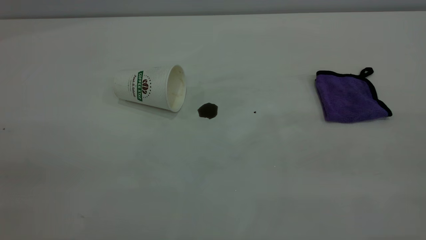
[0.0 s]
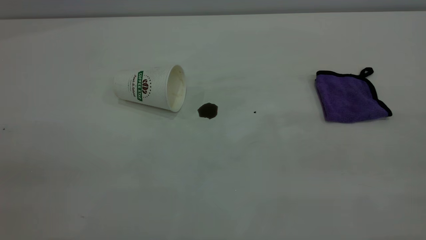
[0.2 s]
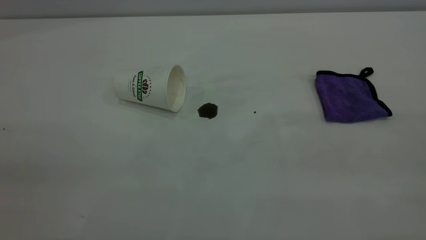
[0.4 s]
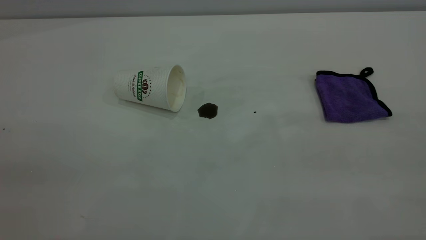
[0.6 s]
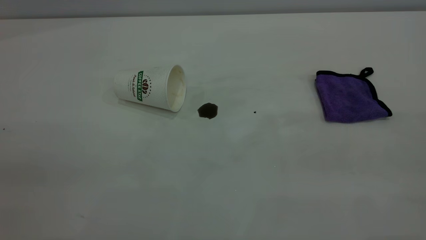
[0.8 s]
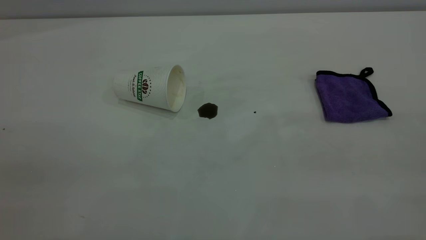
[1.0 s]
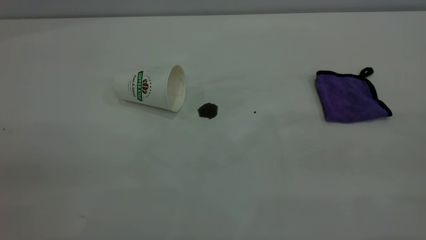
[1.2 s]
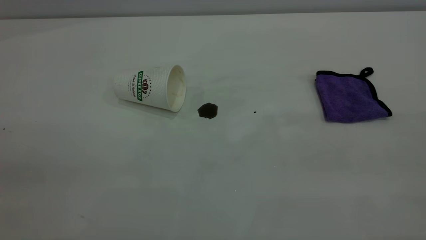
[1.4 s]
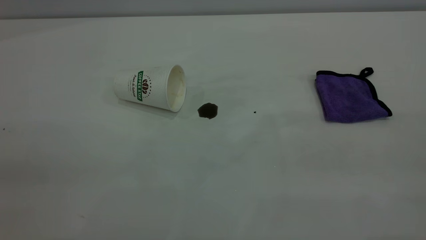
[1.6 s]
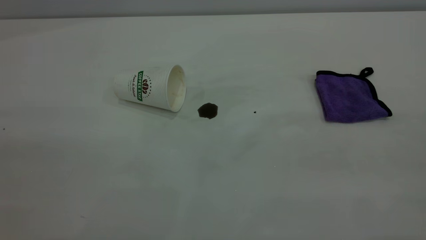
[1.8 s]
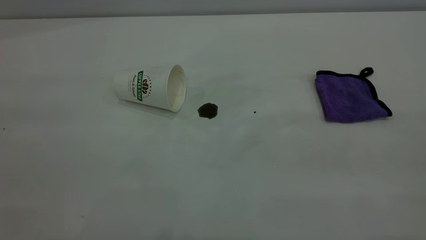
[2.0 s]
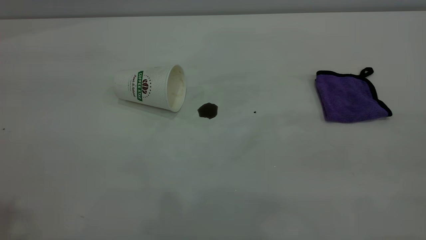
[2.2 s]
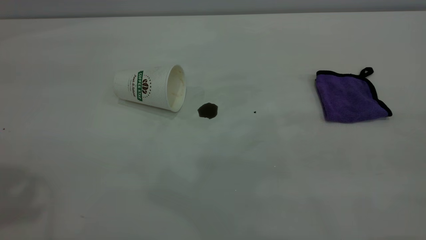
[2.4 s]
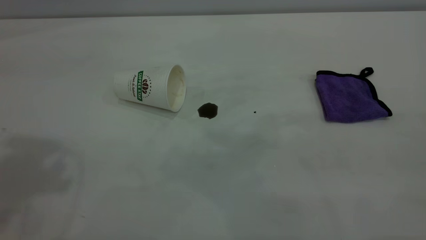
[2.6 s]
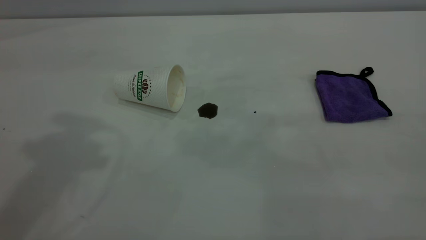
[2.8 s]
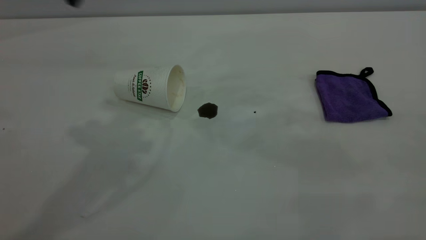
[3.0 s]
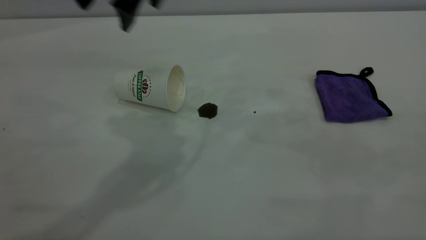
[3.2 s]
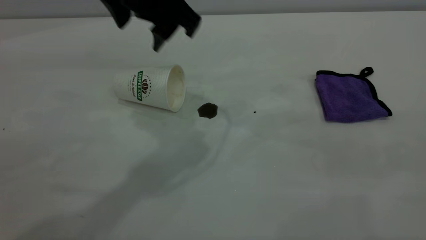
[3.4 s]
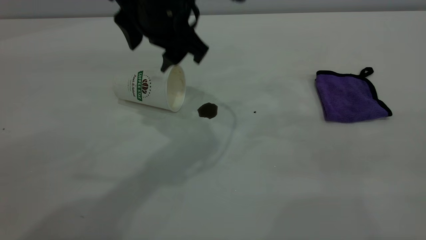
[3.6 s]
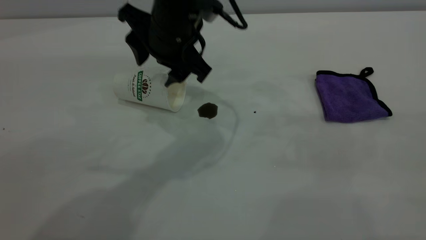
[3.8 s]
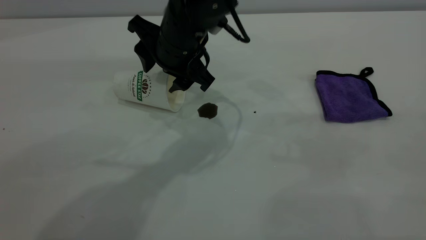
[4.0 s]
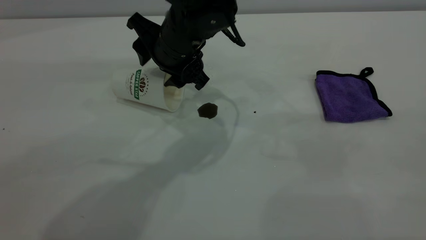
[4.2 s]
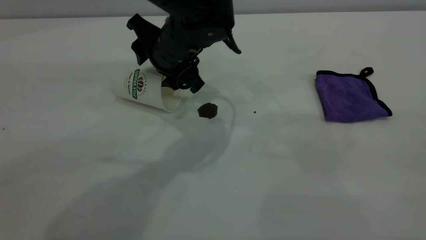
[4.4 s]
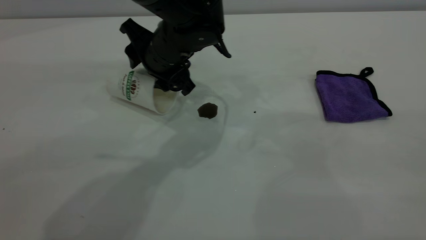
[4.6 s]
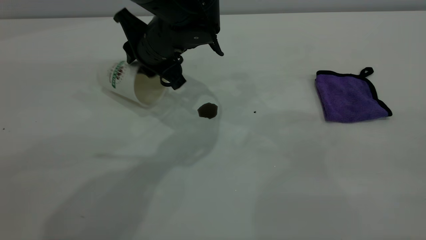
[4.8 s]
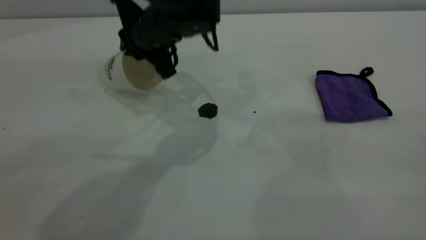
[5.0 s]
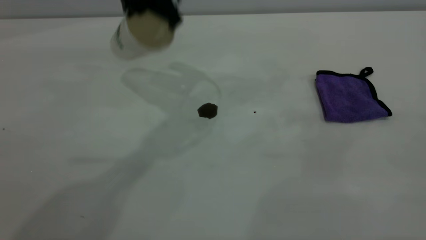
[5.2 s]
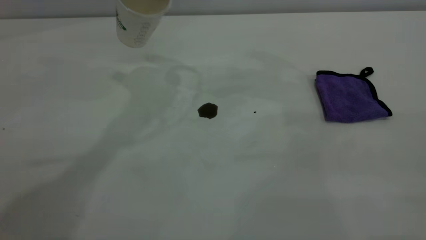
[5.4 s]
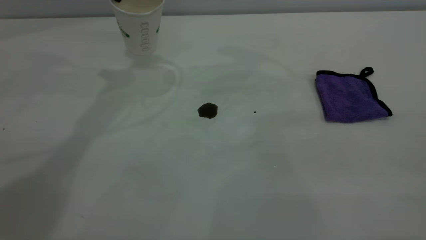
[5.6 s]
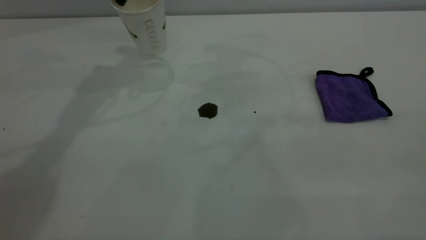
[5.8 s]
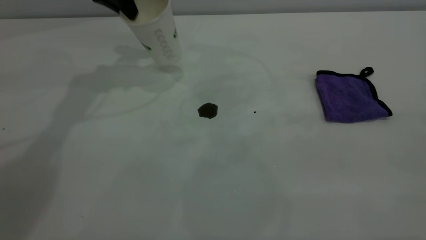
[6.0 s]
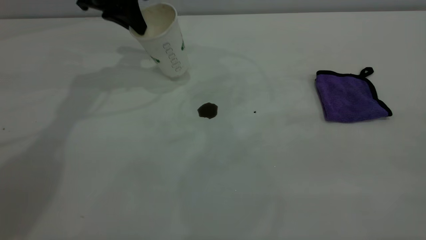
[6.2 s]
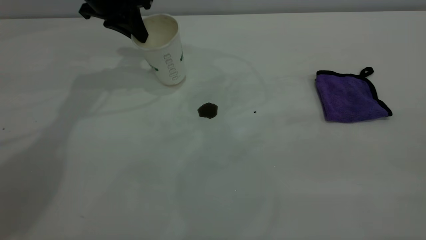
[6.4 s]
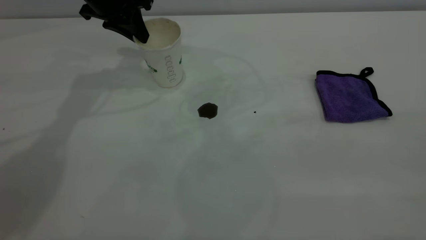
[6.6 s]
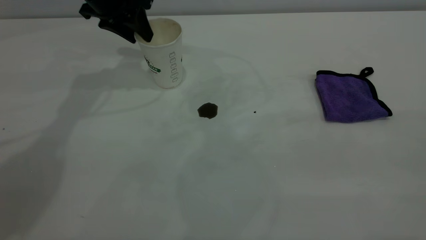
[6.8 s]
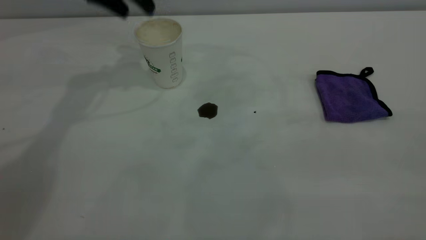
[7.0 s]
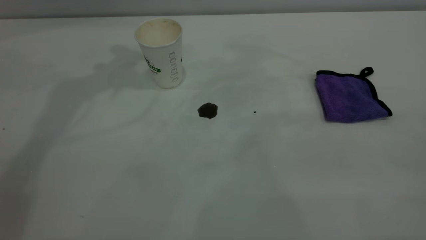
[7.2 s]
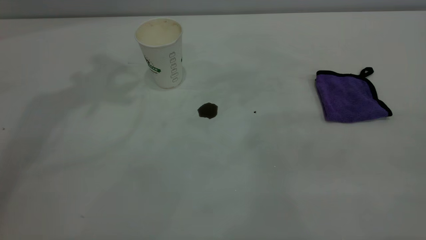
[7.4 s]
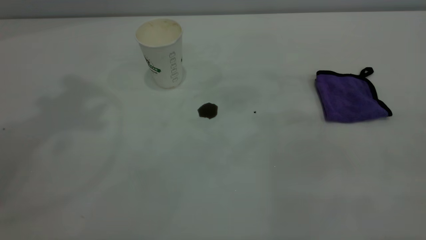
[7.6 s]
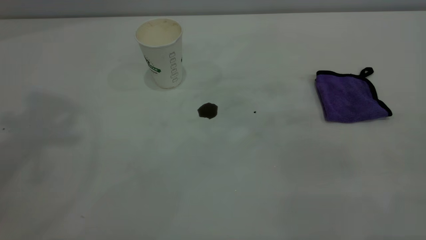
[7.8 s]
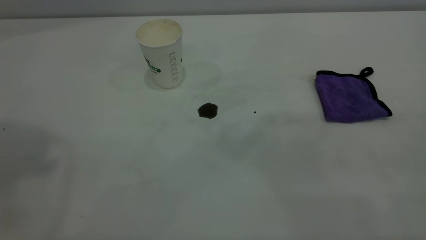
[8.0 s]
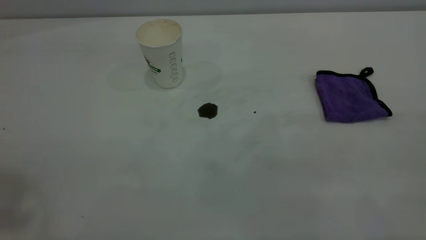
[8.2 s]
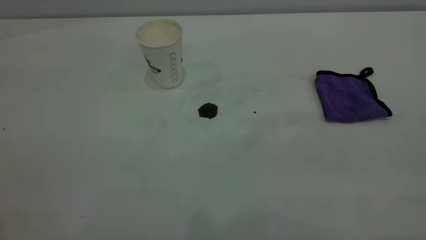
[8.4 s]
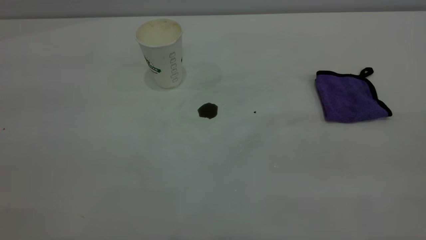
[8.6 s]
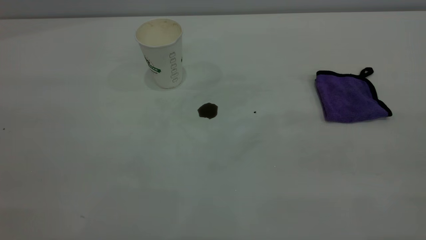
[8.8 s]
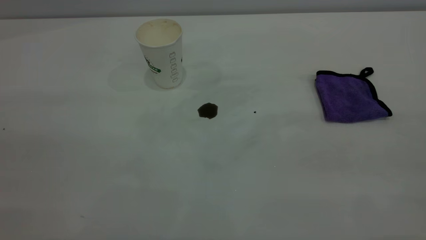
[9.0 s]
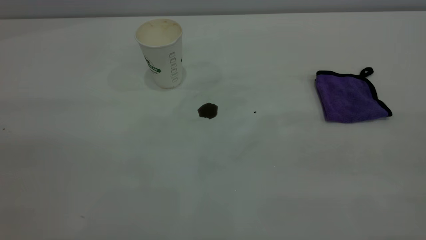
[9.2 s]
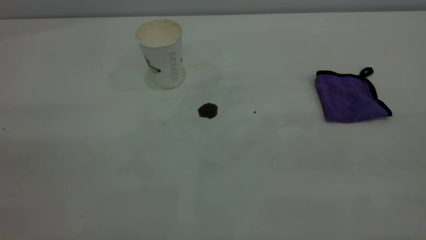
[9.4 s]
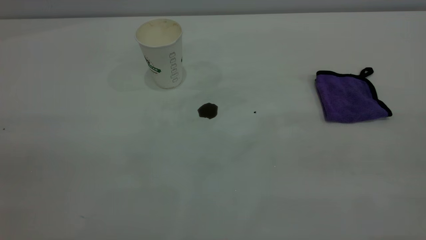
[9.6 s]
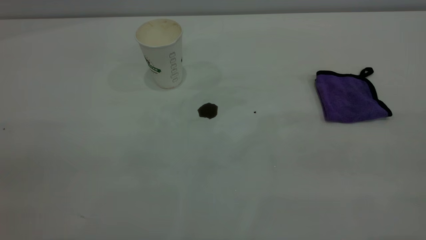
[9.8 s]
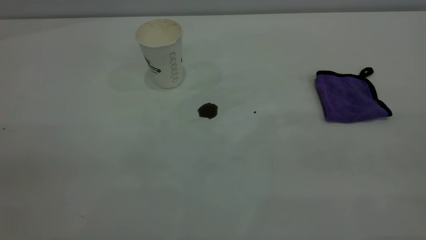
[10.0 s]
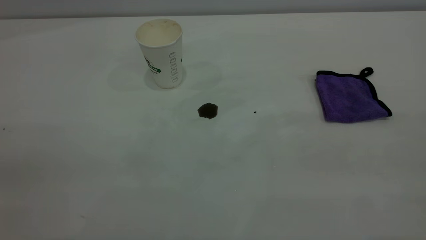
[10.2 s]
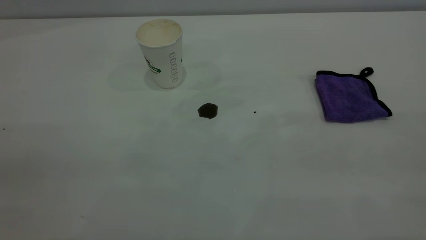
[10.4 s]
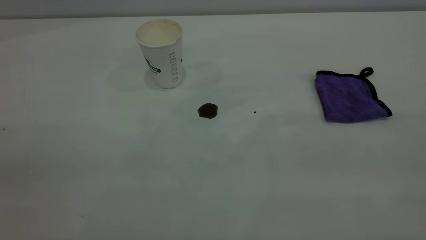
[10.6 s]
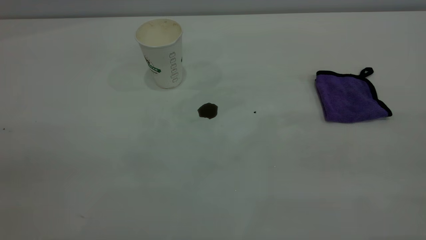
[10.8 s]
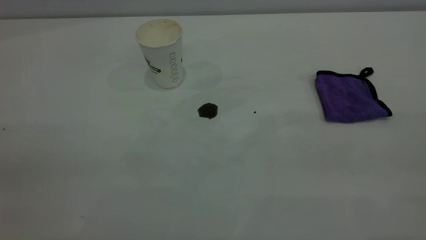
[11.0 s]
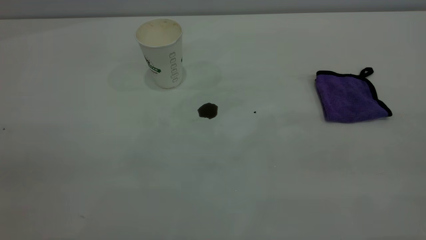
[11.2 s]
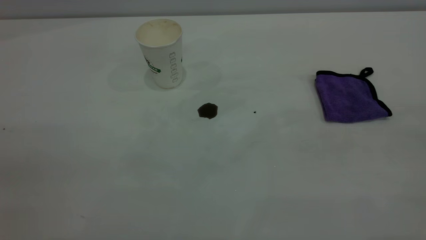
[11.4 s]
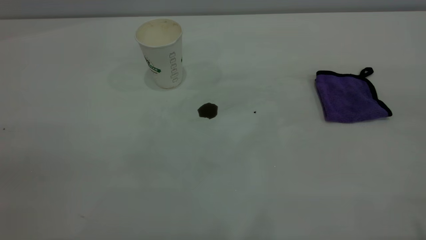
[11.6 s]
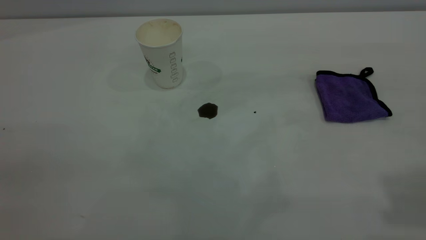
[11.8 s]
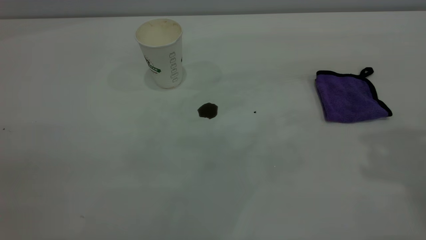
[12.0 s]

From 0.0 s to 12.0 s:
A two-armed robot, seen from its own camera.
Task of the whole recording: the left gripper pick up the fallen cup and place it upright, the right gripper grasp the purple rag and wipe the coffee stain on the table, the right gripper put the purple rag back in its original position.
Step, from 0.0 s to 6.8 s: Stand the paper cup upright.
From 0.0 s to 1.6 s: The two grippers keep their place.
From 3.0 s to 4.4 s: The left gripper goes approximately 25 cm downward and to the right.
From 4.4 s to 6.0 s: The left gripper goes roughly 20 cm to the left, forward and upward, and closes up.
From 6.0 s to 7.6 s: The left gripper travels upward and backward by approximately 30 cm, and opens its fingers.

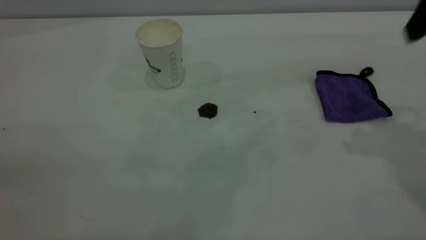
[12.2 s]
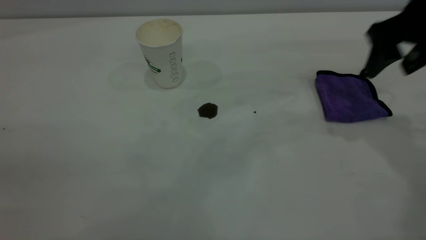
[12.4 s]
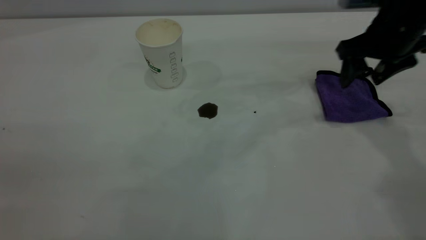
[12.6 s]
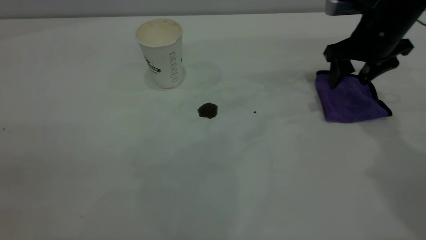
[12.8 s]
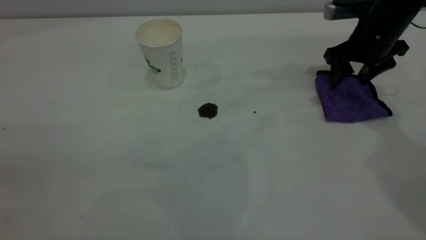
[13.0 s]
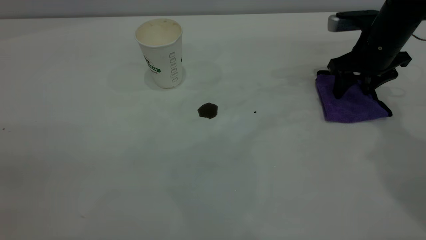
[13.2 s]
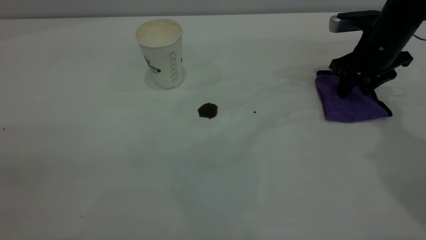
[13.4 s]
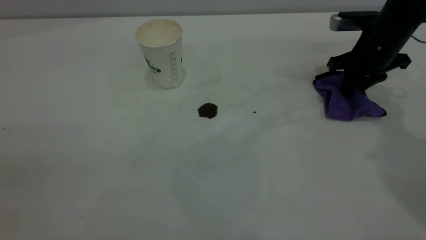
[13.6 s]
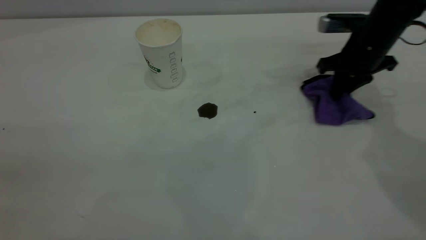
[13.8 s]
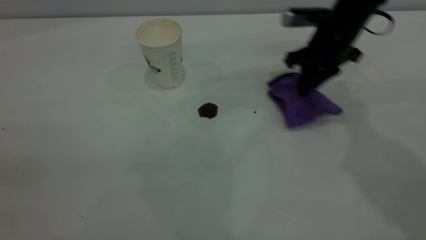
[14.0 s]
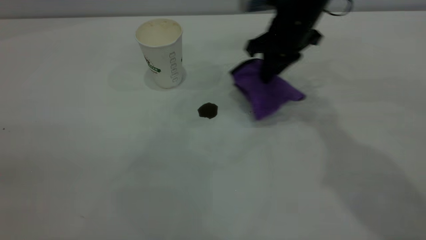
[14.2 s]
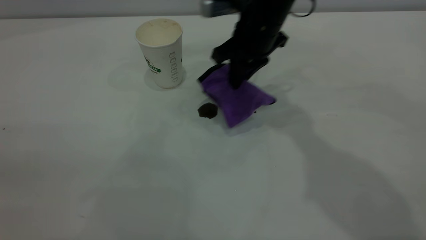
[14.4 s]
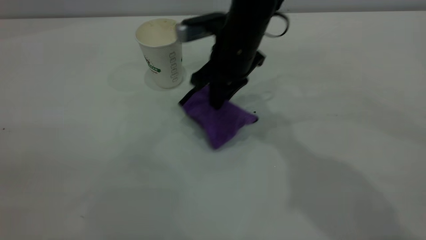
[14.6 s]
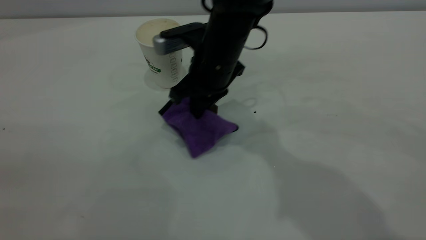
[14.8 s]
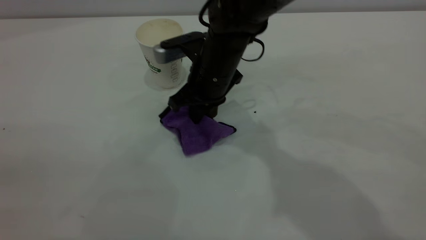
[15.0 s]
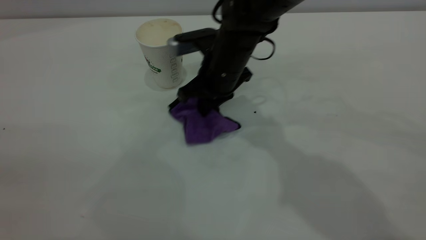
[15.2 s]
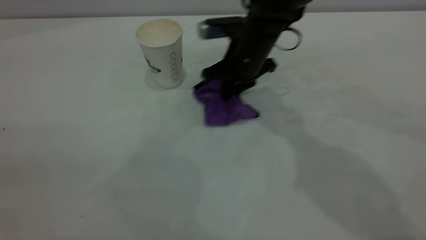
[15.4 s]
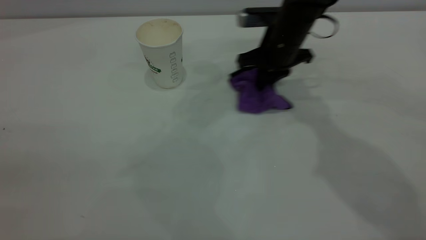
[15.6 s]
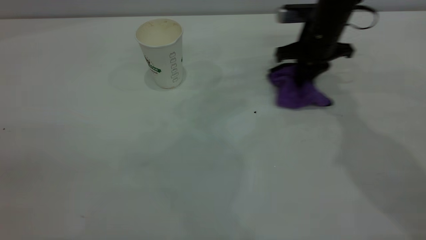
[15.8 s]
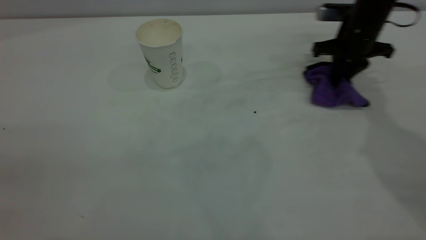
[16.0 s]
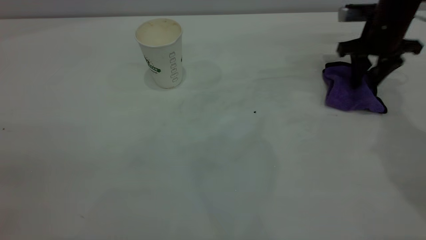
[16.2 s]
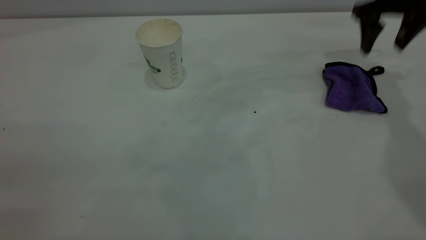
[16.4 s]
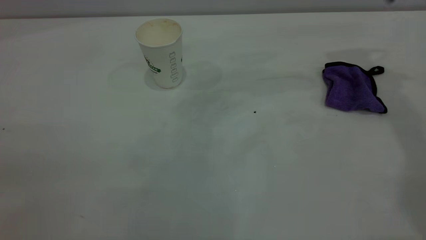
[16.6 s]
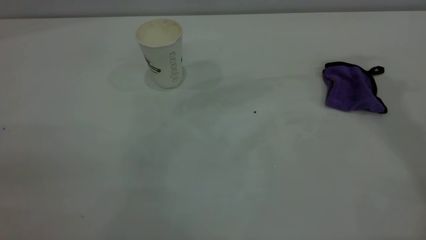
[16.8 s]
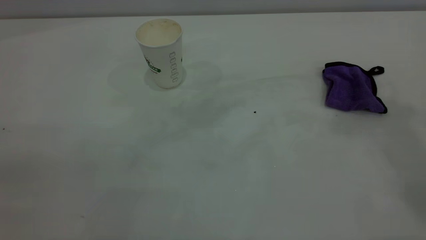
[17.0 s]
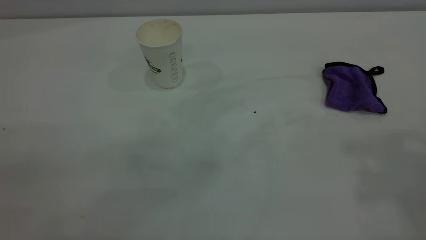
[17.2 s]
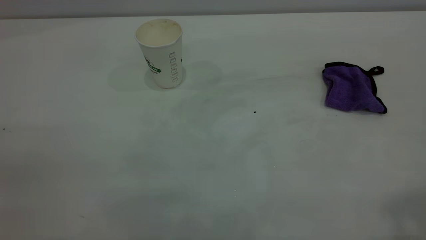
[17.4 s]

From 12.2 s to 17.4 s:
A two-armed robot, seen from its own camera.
Task of the whole recording: the left gripper pick up the fallen cup and place it upright, the right gripper grasp the purple rag and wipe the coffee stain on the table, the right gripper put the purple rag back in its original position.
Step, from 12.2 s to 16.2 s: Wipe the stains off the table with a rag.
From 12.2 s to 14.0 s: The right gripper travels downward, forward and to the left by approximately 20 cm, and closes up.
From 14.0 s to 15.6 s: The right gripper goes to the left and returns, approximately 20 cm each way.
From 15.6 s to 17.4 s: The right gripper shifts about 50 cm upward and backward, and opens up.
